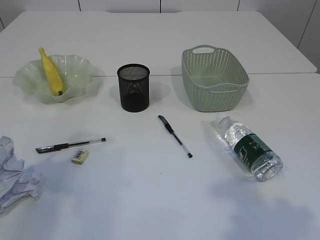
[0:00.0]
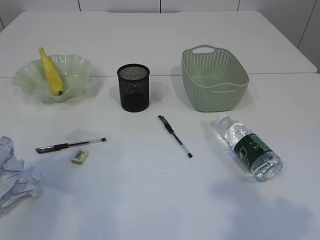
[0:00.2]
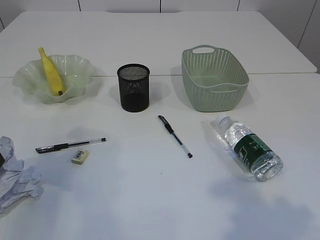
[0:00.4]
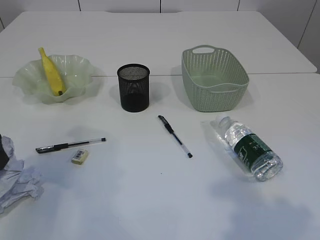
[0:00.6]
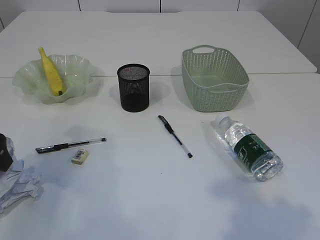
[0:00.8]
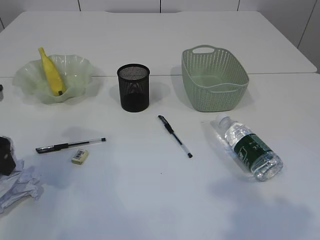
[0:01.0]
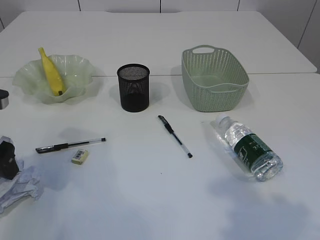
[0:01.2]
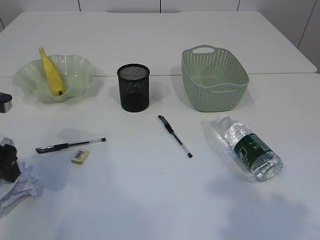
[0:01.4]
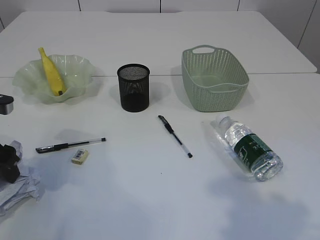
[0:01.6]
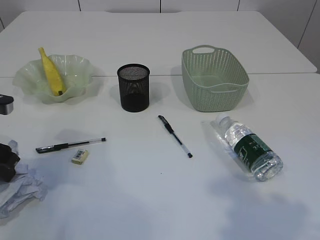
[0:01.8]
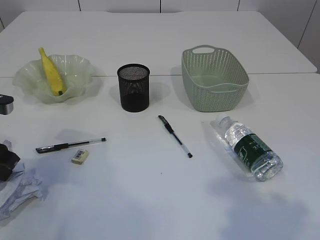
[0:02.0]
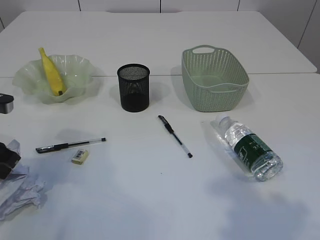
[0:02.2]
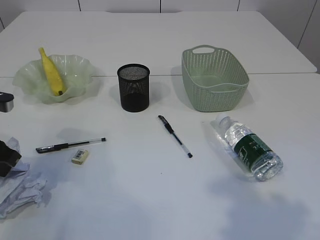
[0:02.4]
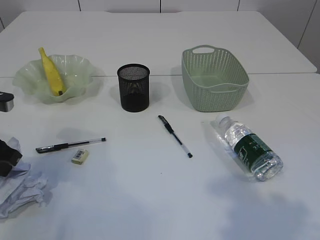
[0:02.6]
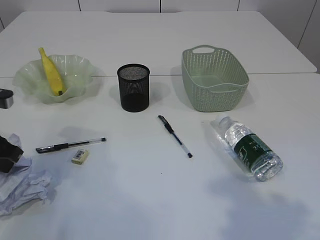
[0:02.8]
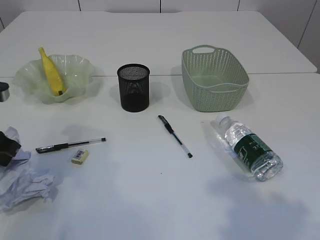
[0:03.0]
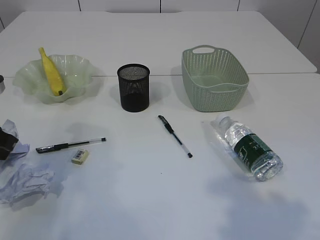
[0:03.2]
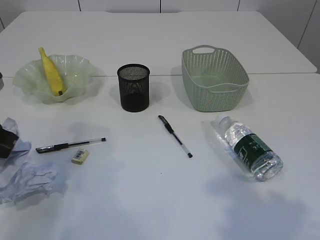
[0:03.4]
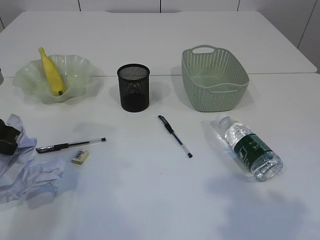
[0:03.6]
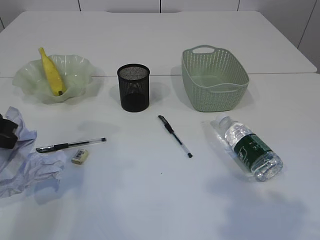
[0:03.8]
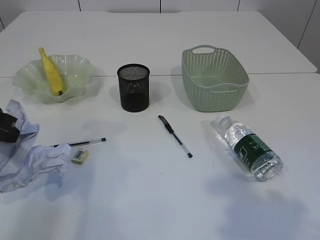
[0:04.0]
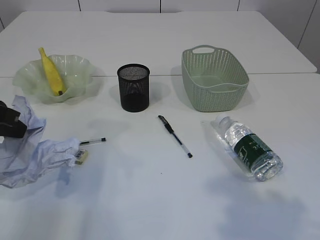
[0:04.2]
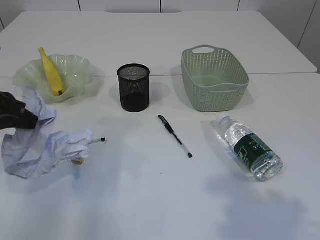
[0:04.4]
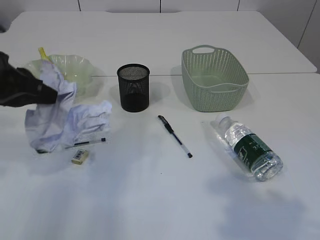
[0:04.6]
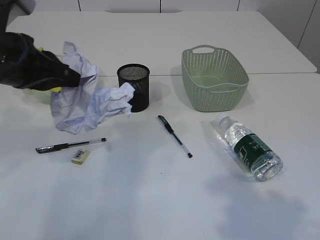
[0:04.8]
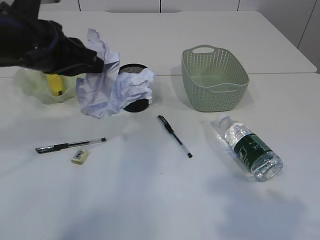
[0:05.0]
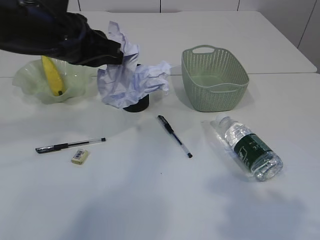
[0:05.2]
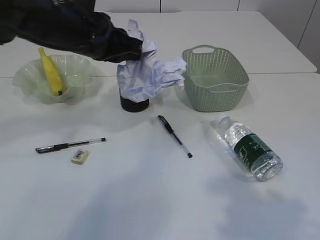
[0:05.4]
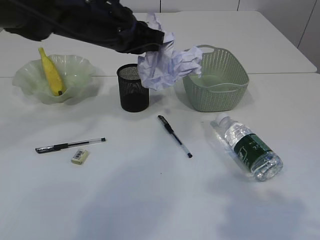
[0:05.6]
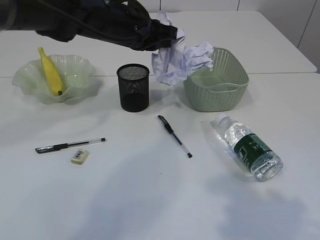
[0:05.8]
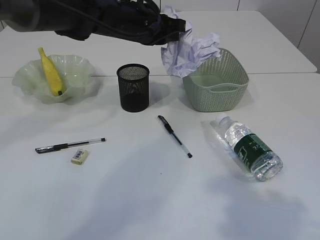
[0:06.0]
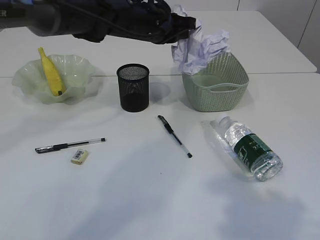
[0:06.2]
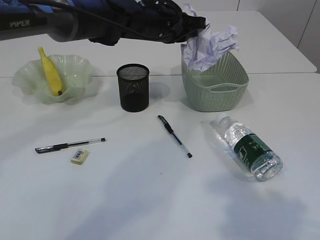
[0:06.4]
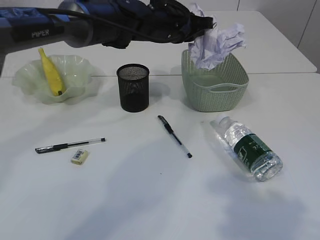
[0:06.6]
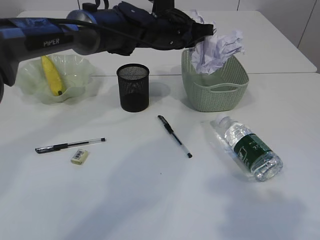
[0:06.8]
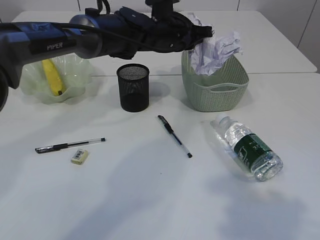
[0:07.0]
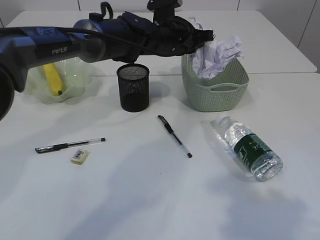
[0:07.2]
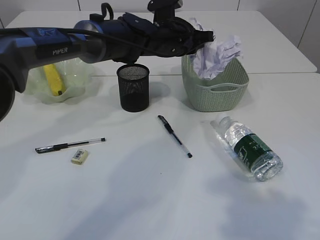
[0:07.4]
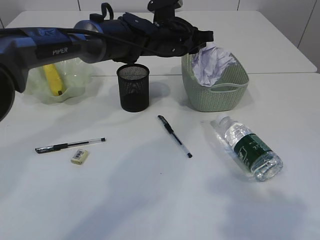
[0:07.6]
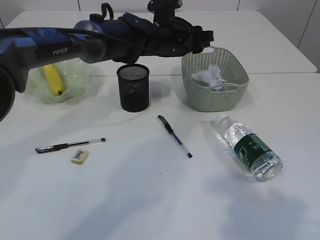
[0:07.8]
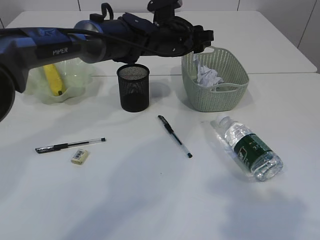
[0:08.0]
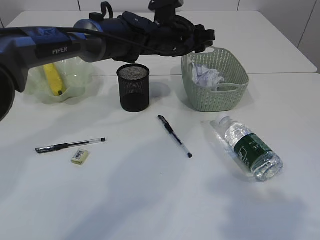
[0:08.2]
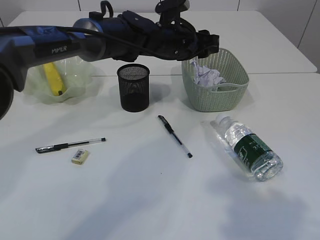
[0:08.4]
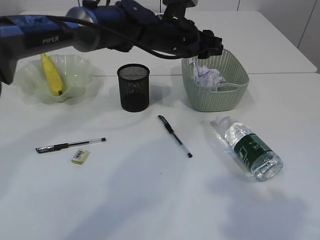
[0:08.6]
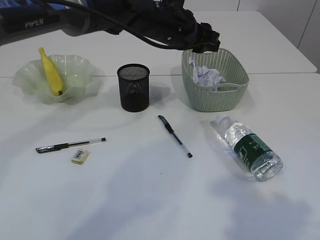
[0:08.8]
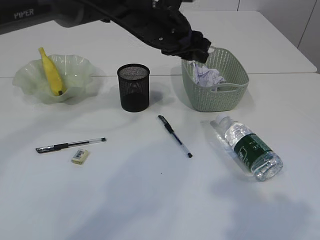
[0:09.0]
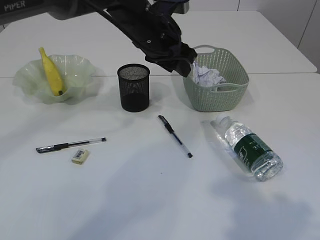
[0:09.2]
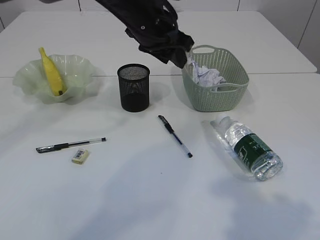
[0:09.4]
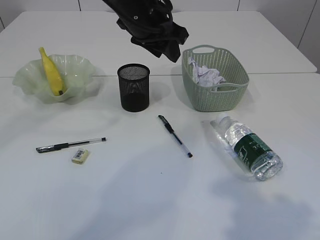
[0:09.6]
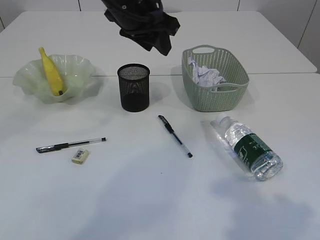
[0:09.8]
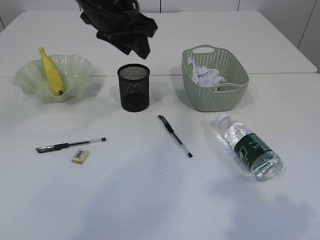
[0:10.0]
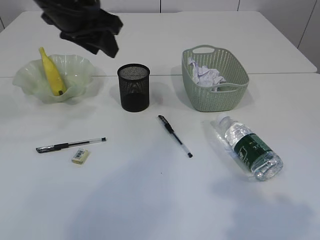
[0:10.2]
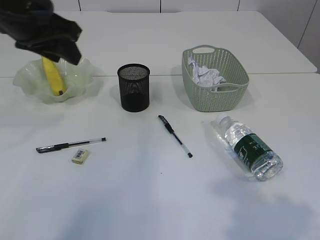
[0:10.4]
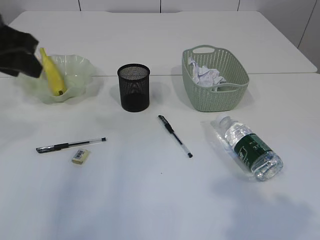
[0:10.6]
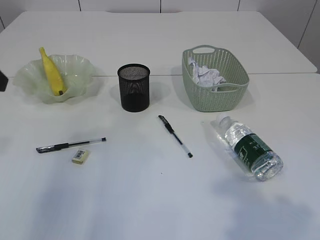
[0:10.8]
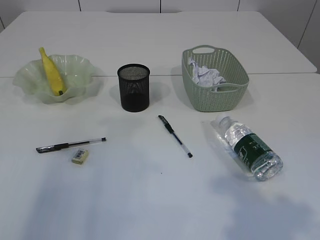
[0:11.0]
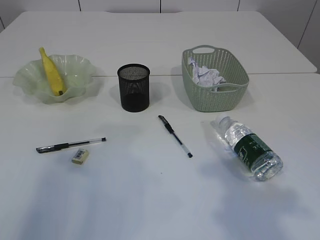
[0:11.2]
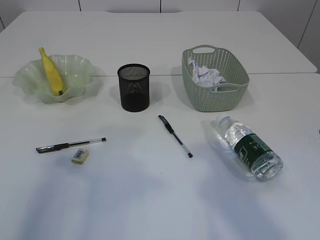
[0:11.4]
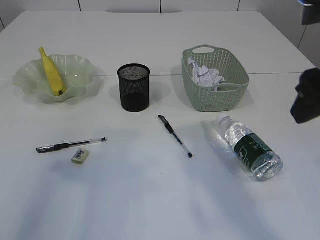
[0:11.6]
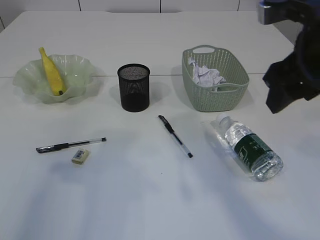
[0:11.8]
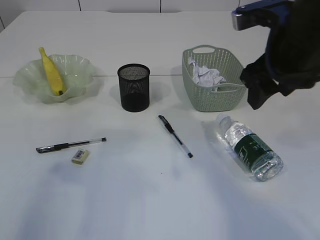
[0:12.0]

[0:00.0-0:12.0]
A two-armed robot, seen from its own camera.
Step, 0:00.0 to 0:04.2: Pick up the waste paper.
Step, 0:04.4 to 0:08.8: Place the waste paper in the basket.
0:00.0 to 0:01.6: The left gripper heads downward and forward, covering approximately 10 cm.
0:01.6 to 0:03.0: The left gripper closes up.
0:03.0 to 0:04.4: The left gripper travels upward by approximately 5 cm.
0:04.4 to 0:06.0: The left gripper shifts roughly 25 cm to the right and forward.
0:06.0 to 0:07.6: The left gripper heads to the right and downward, covering approximately 10 cm.
0:07.6 to 0:09.0: The left gripper moves some 5 cm.
0:09.0 to 0:10.4: The left gripper shifts roughly 20 cm to the left and backward.
0:10.4 to 0:12.0: The left gripper shifts approximately 20 cm backward and to the left; the right gripper heads forward, covering roughly 20 cm.

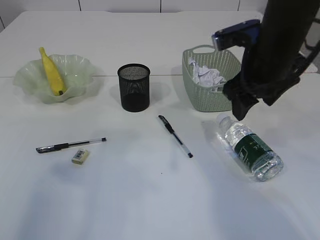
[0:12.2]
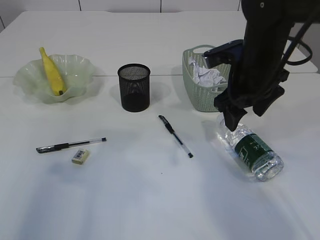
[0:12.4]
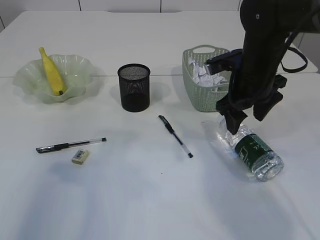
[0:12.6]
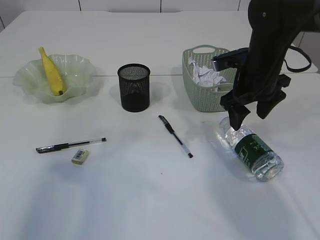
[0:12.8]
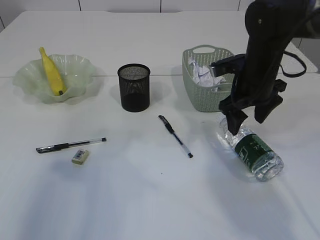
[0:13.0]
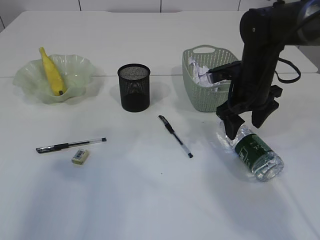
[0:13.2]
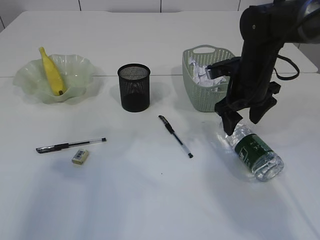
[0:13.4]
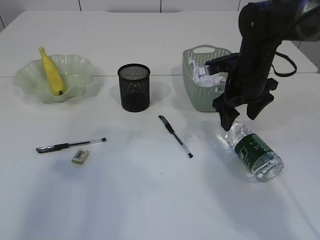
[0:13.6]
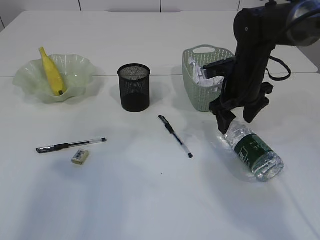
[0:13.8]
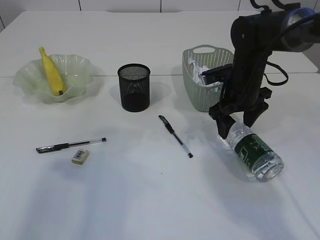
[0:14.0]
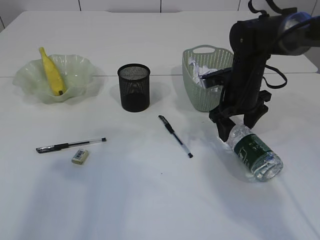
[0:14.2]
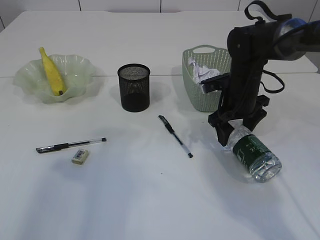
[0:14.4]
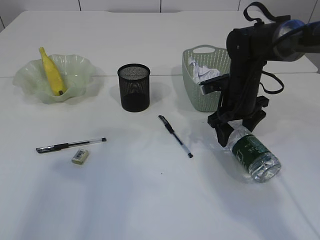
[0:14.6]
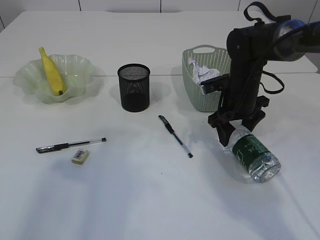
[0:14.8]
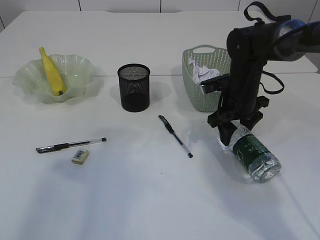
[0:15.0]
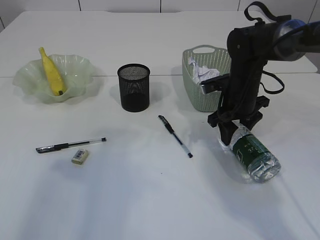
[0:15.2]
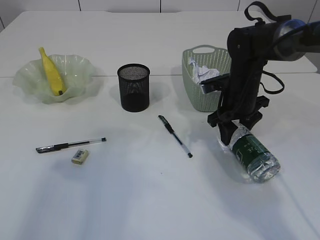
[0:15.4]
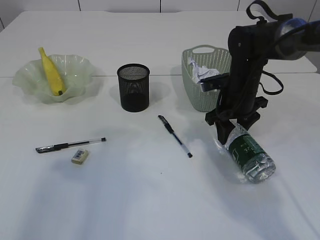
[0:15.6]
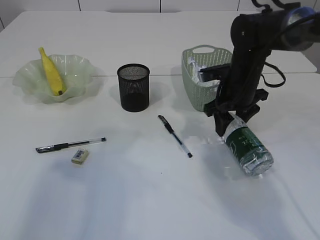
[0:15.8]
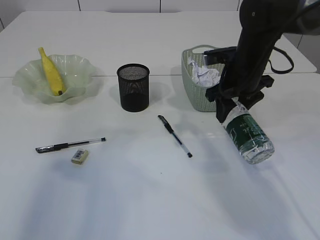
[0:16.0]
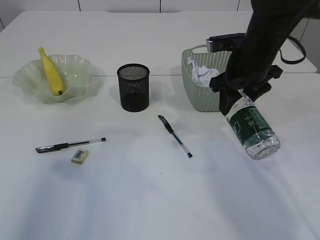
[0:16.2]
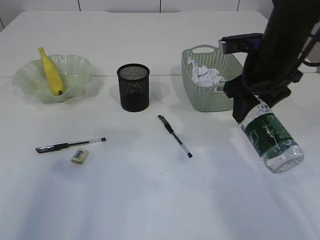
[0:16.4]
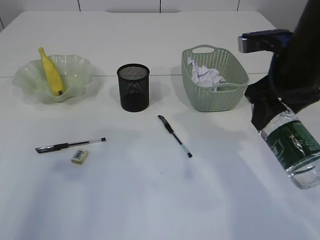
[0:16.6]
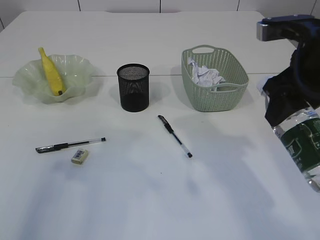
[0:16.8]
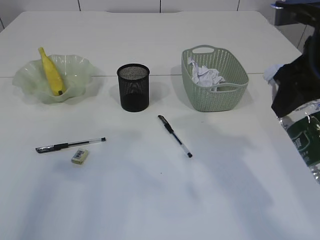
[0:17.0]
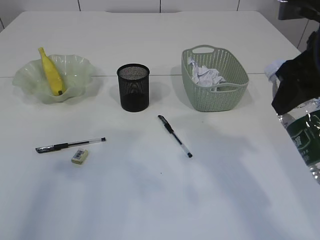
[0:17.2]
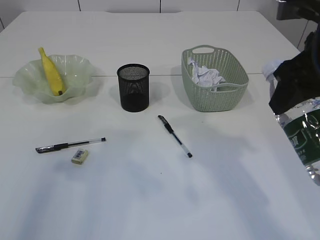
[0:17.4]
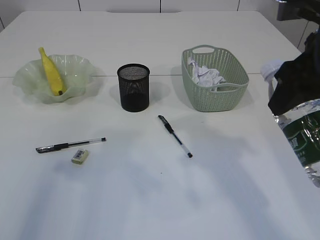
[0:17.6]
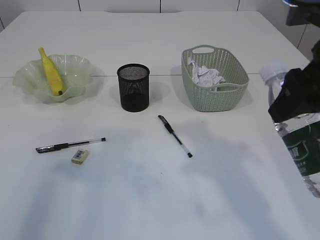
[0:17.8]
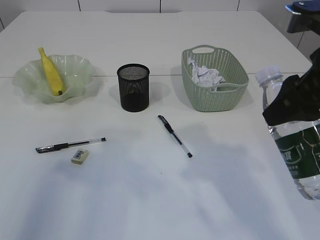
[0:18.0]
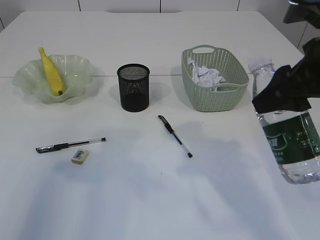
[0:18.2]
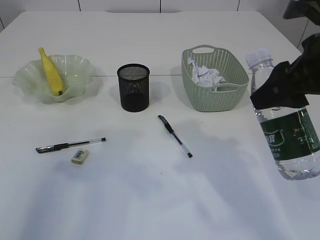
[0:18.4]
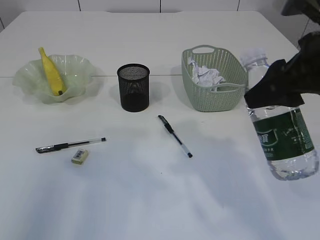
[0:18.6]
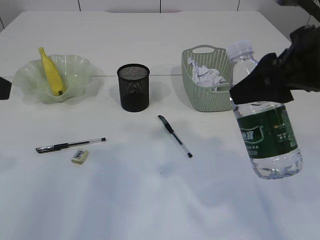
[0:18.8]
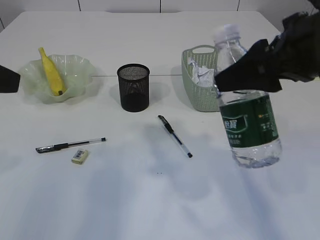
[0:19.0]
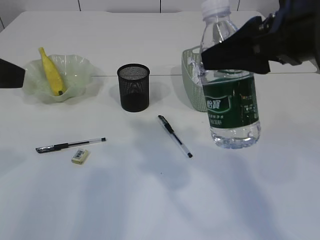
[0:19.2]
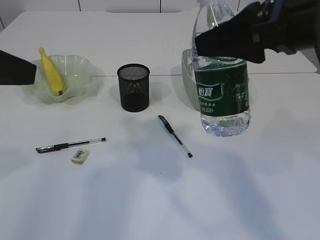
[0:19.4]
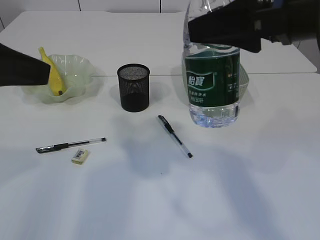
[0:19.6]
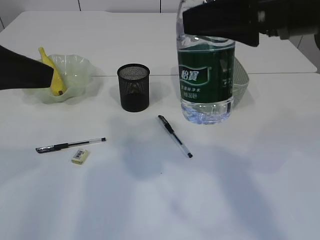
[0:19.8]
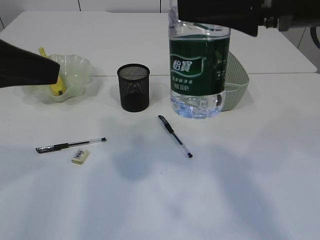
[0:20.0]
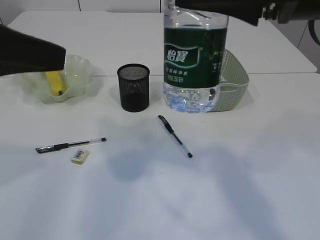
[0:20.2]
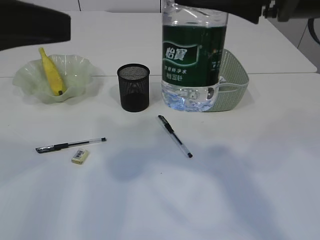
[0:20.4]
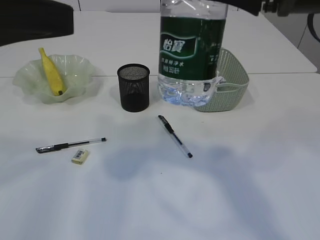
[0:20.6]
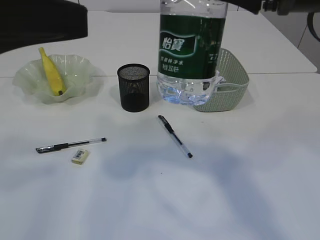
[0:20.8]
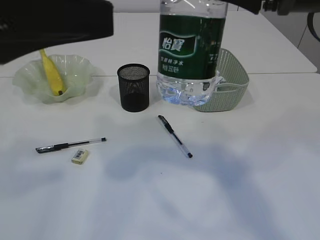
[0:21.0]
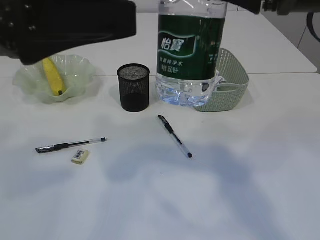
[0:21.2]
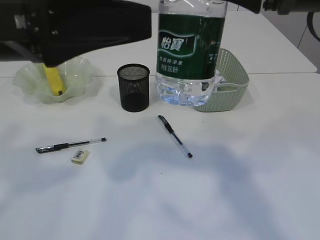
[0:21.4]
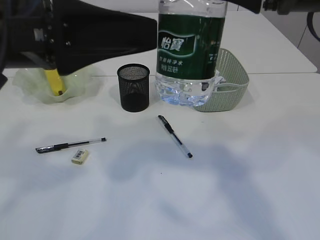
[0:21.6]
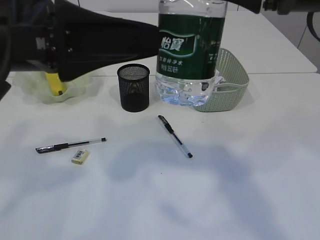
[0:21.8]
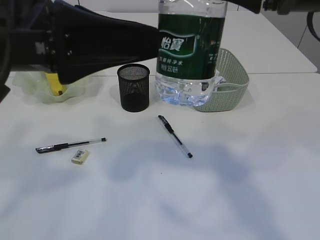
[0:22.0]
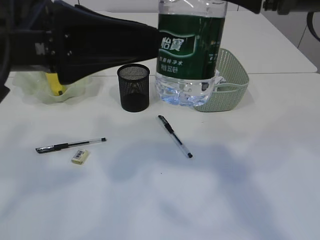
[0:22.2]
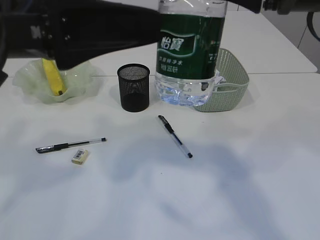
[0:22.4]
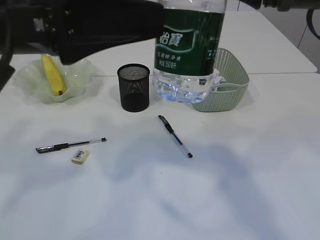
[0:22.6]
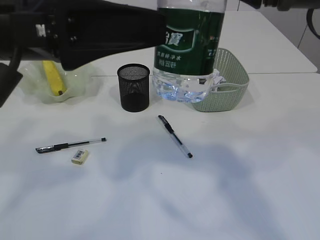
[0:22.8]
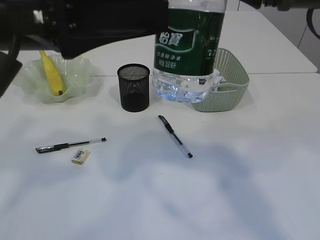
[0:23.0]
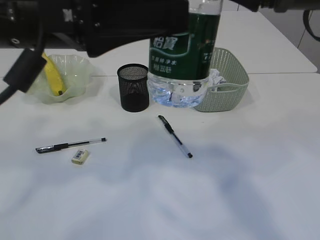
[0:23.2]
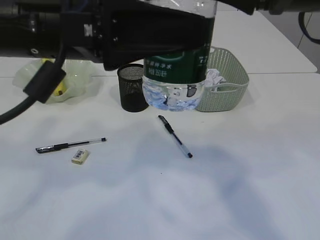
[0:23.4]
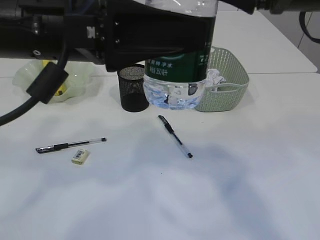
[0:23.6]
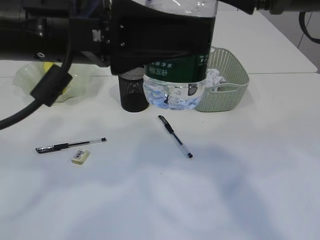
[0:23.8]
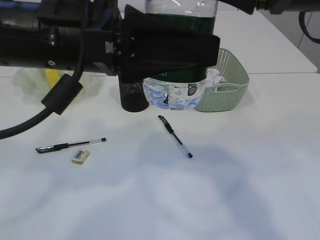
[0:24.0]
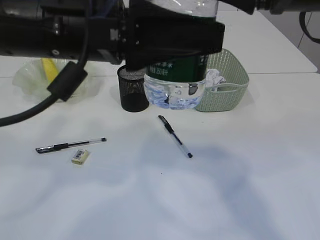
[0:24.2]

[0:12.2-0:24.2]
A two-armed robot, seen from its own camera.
Step, 0:12.2 to 0:16.4: Pick up the bottle with the right arm.
0:12.2 to 0:13.8: The right gripper heads downward and forward, covering some 15 cm.
0:13.8 to 0:15.2: The right gripper closes.
0:15.2 to 0:16.6: The right gripper heads upward and backward, covering about 15 cm.
0:16.6 to 0:18.2: The right gripper is displaced backward by roughly 10 cm.
0:18.2 to 0:19.8: The right gripper is displaced upward by about 5 cm. The left gripper goes some 5 cm to the right.
0:19.8 to 0:21.2: The left gripper is displaced to the right by approximately 5 cm, and opens up.
0:21.2 to 0:22.6: There are only small adjustments of the grippers.
0:22.6 to 0:24.2: The left gripper travels to the right by approximately 5 cm.
